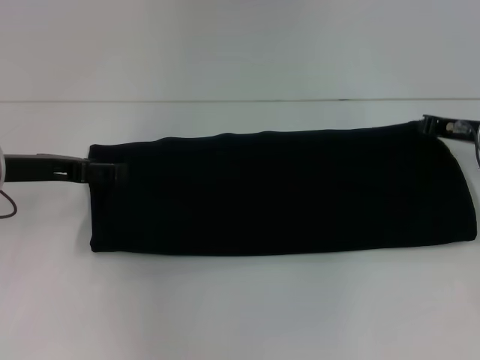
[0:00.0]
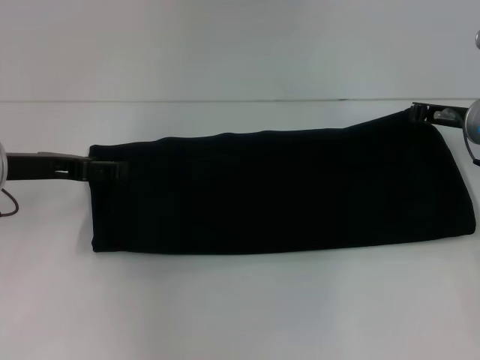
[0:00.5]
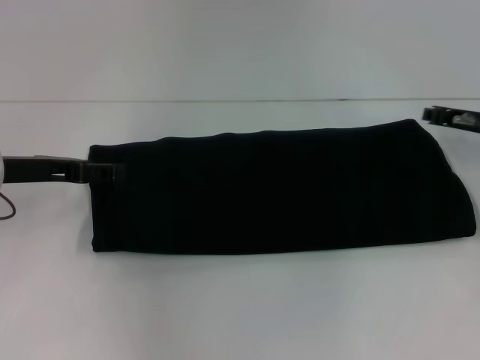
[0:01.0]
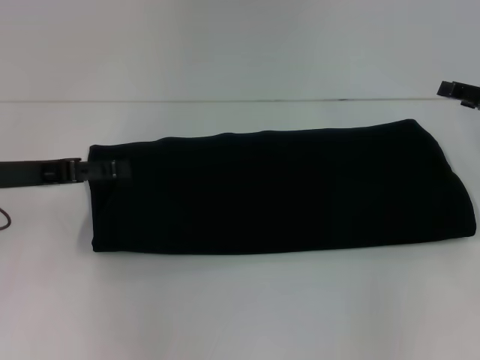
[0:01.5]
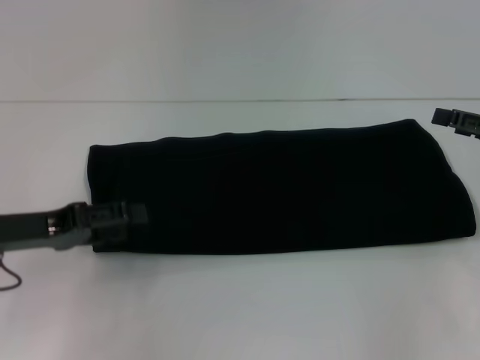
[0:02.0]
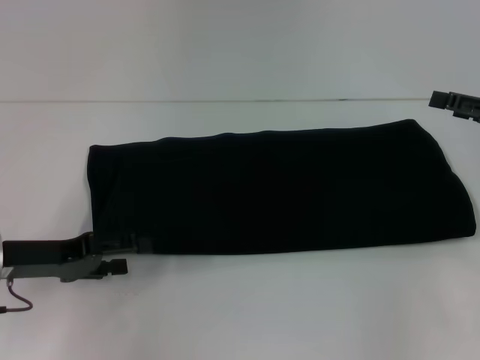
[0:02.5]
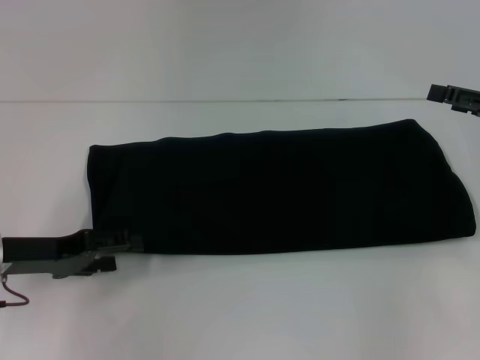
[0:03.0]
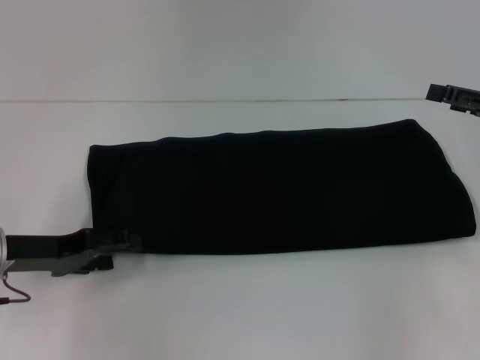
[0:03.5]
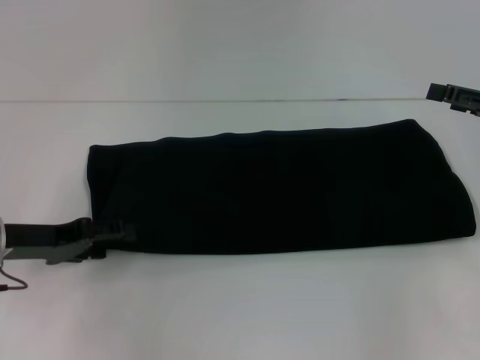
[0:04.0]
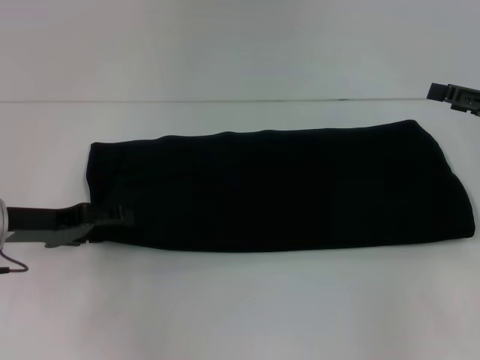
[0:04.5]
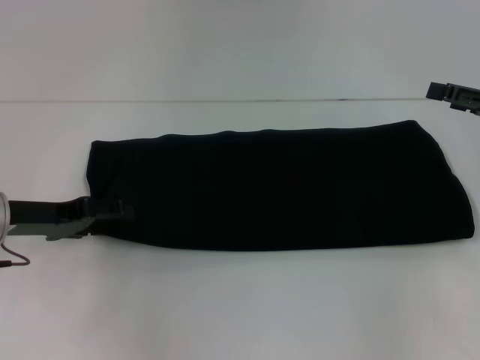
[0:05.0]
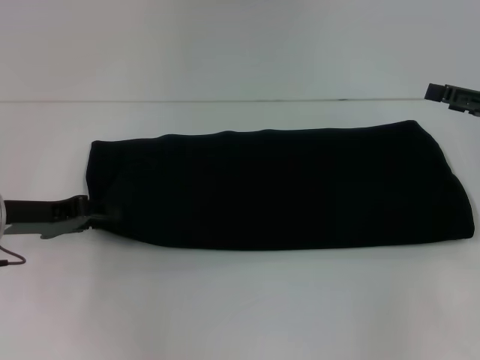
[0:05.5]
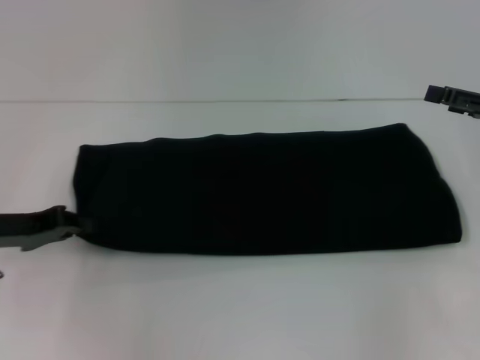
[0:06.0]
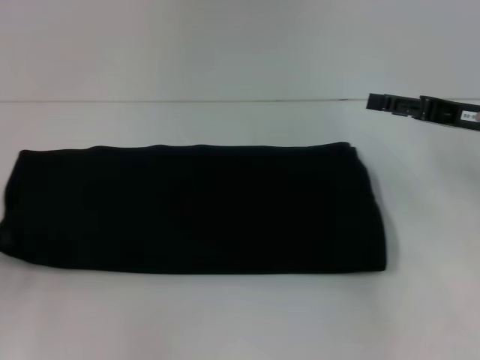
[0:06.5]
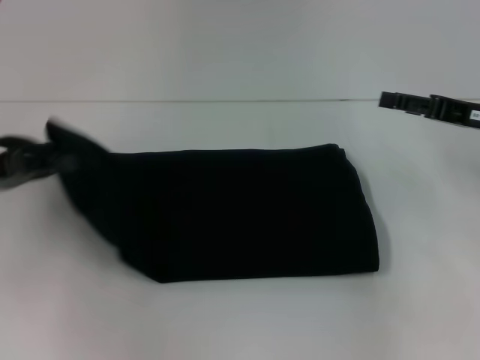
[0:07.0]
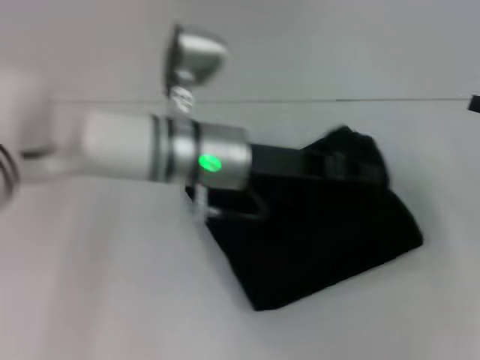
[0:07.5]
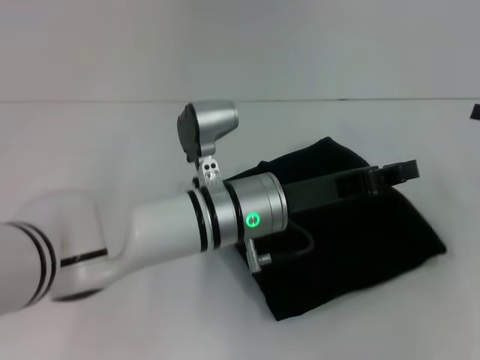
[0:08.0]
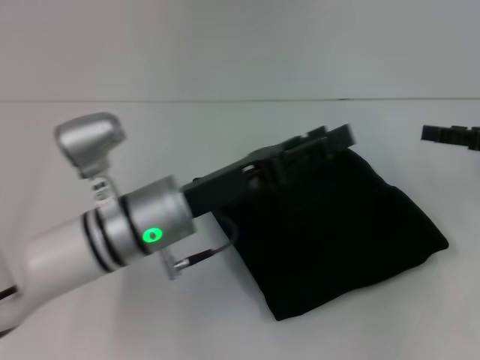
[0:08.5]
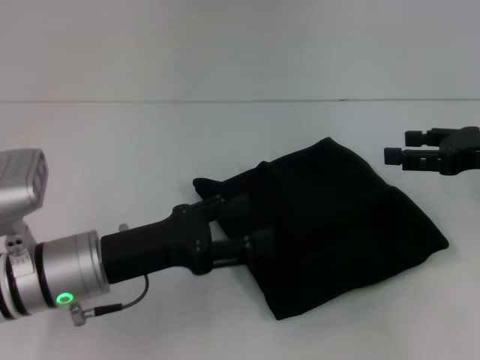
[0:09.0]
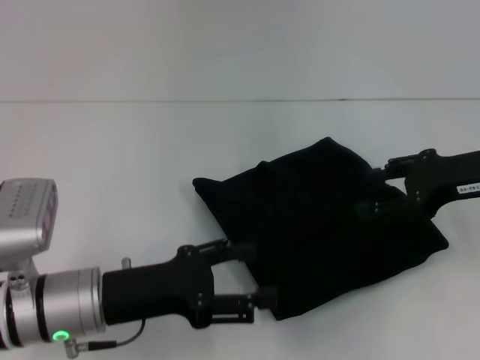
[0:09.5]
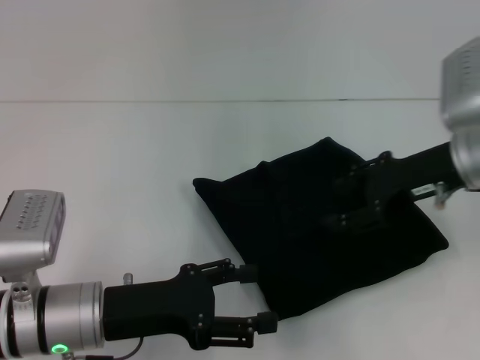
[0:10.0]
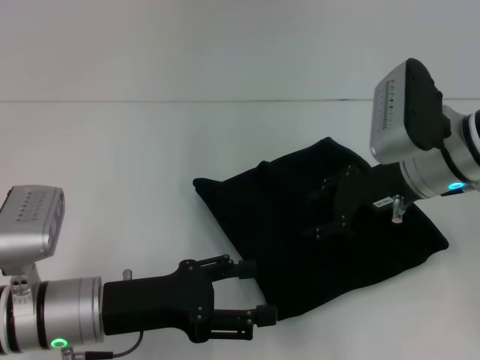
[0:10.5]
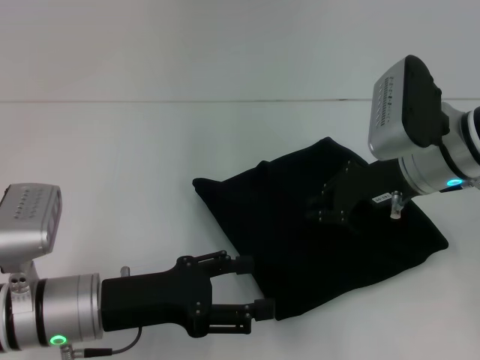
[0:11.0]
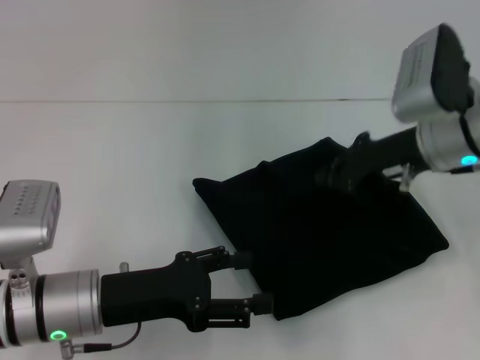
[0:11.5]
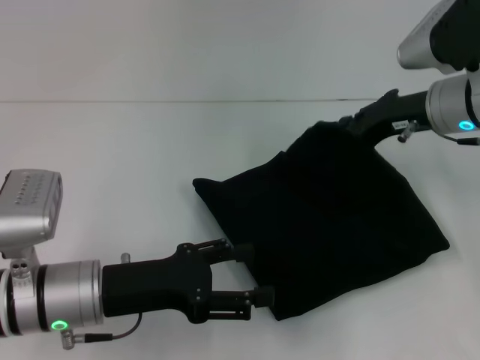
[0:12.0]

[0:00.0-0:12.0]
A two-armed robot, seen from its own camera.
Step, 0:00.0 to 0:07.5: Fold the clothes with your left hand.
0:00.0 to 0:02.0: The right gripper moves backward and to the right, approximately 10 cm, and opens. Meanwhile the left gripper heads backward, covering approximately 5 cm.
0:02.0 to 0:04.0: There are only small adjustments of the grippers.
0:04.0 to 0:06.0: The left gripper closes.
0:06.0 to 0:08.0: The left gripper travels to the right by some 30 cm.
0:08.0 to 0:10.0: The left gripper shifts some 20 cm to the left and backward, and opens its fingers. Meanwhile the right gripper travels to the left by about 15 cm.
0:10.0 to 0:12.0: The right gripper closes.

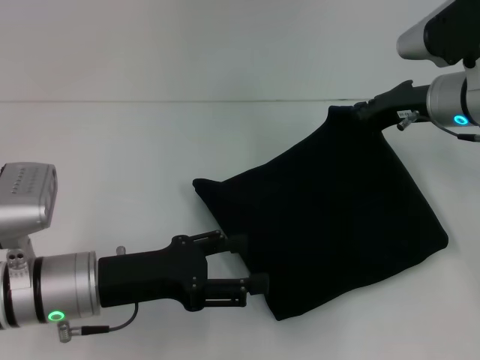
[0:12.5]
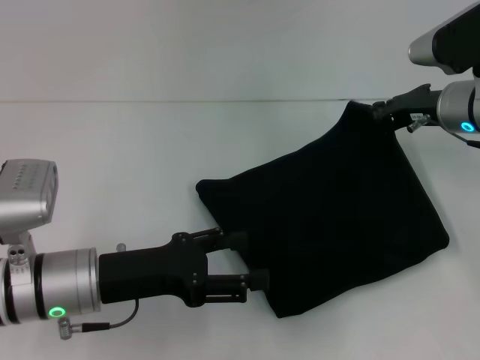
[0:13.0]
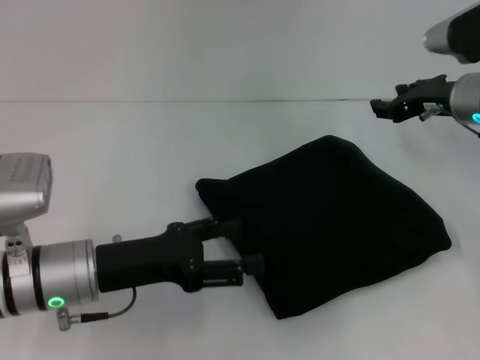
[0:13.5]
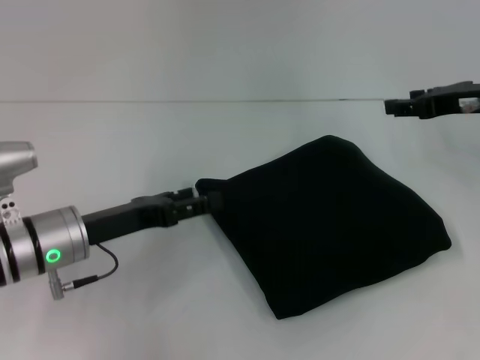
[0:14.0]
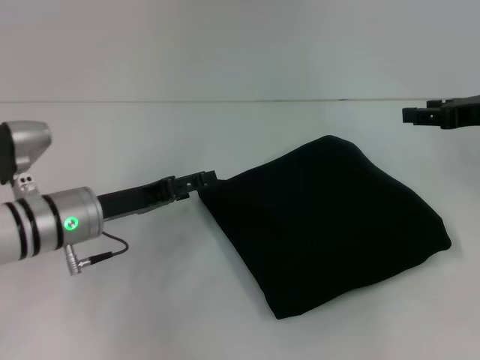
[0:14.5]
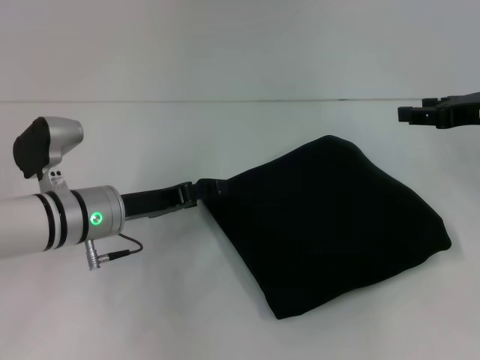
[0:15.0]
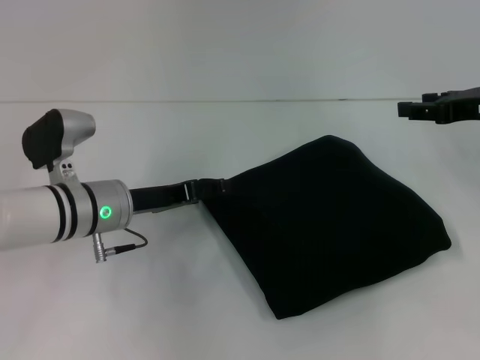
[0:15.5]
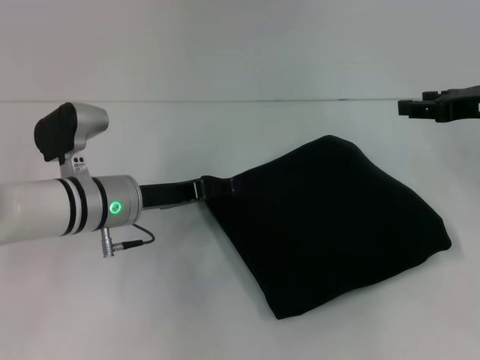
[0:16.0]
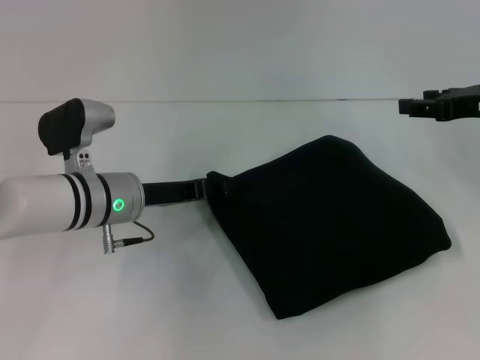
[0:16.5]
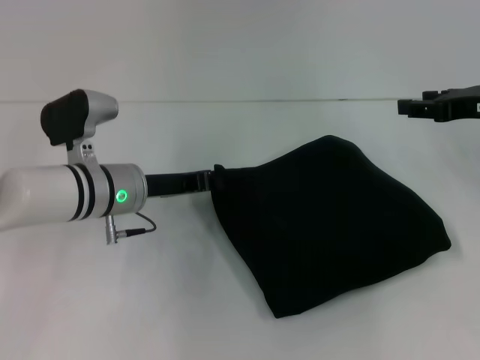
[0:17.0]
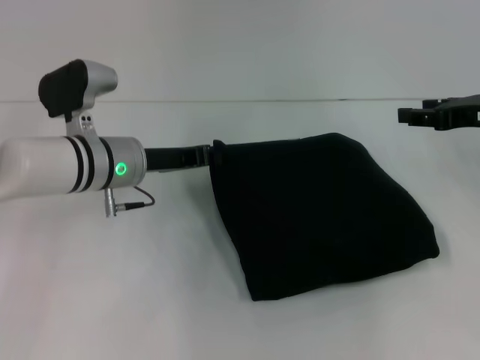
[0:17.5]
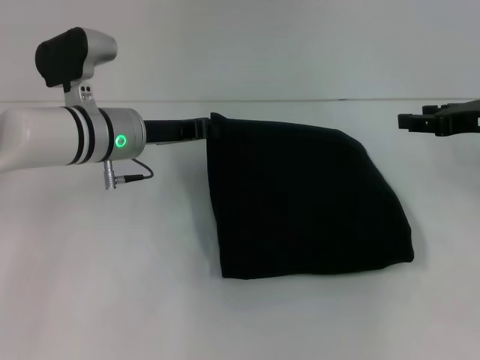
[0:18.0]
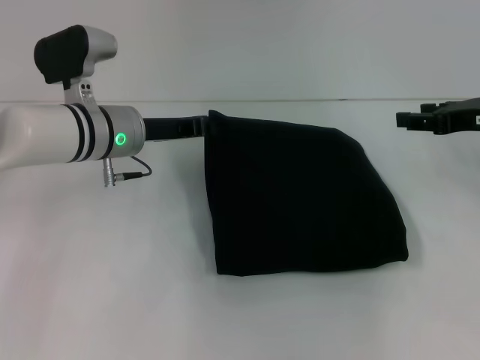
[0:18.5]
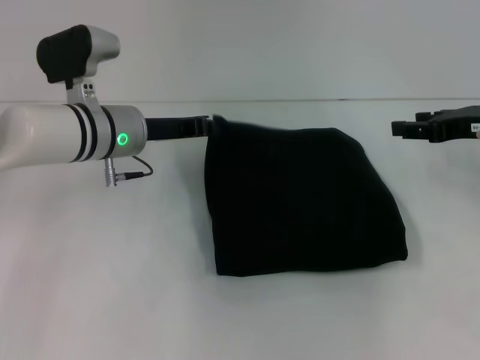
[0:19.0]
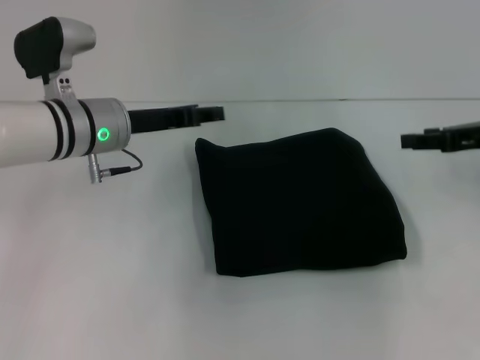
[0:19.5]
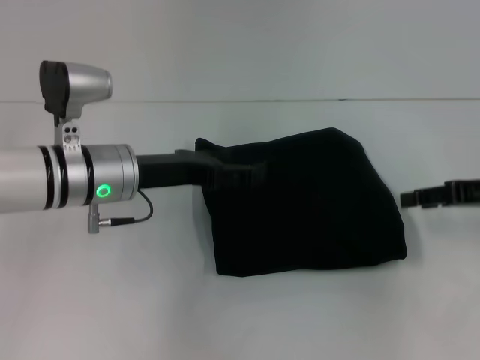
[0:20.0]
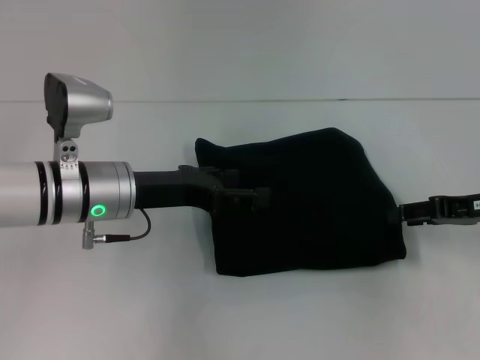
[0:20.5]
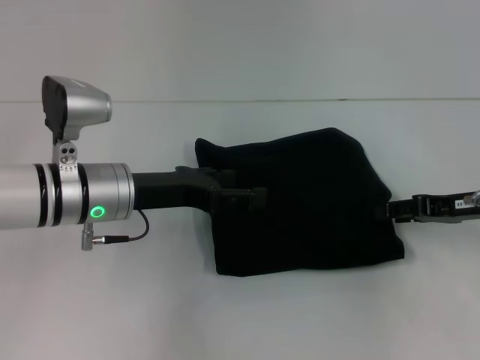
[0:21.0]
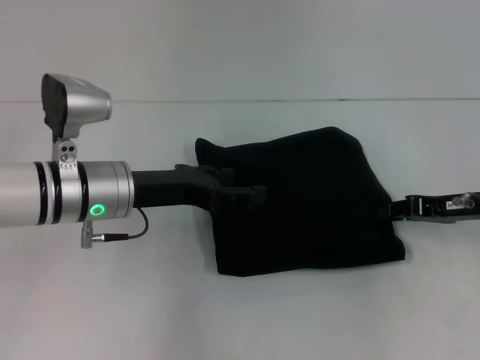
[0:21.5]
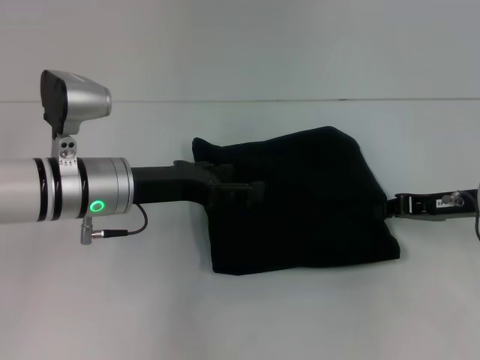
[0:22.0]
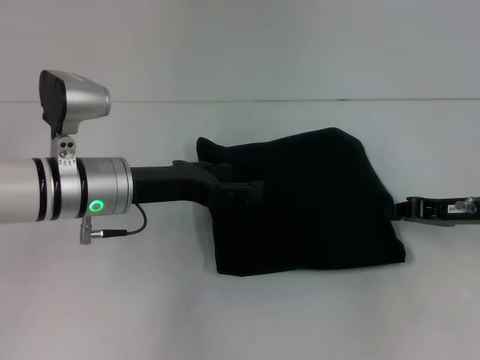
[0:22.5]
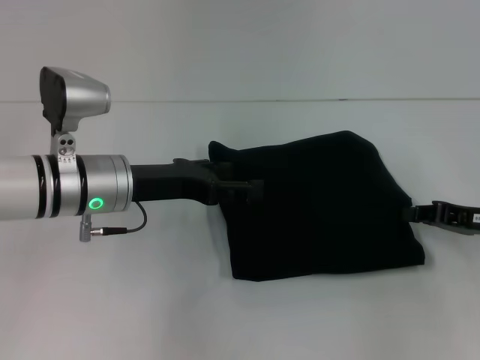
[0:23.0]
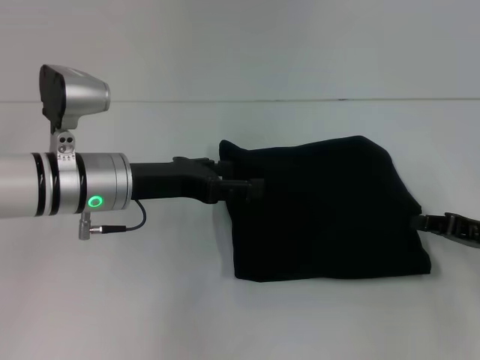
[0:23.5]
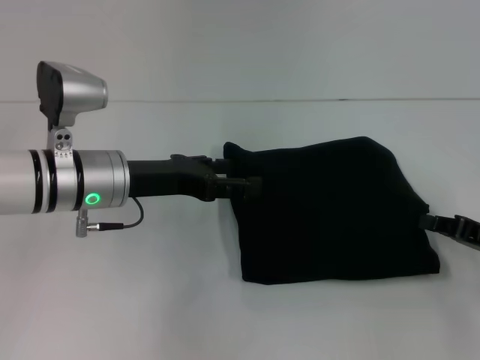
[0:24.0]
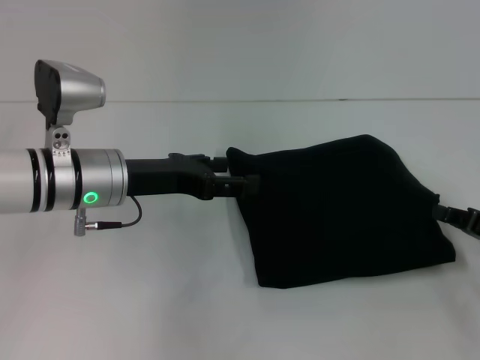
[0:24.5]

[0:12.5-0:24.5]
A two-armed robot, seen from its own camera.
0:12.5 to 0:14.5: The right gripper is displaced to the right by some 10 cm, and opens its fingers, while the left gripper goes roughly 5 cm forward.
0:14.5 to 0:16.5: The left gripper ends up roughly 5 cm from where it was.
0:16.5 to 0:18.5: The left gripper moves approximately 5 cm, and closes.
0:18.5 to 0:20.5: The left gripper is displaced backward by approximately 5 cm, and opens. Meanwhile the right gripper travels downward by some 5 cm.
0:20.5 to 0:22.5: The right gripper closes.
0:22.5 to 0:24.5: The right gripper heads backward, covering approximately 5 cm.

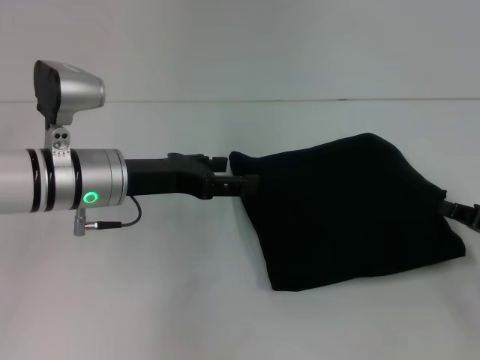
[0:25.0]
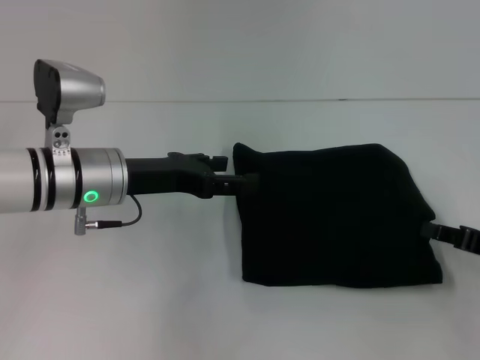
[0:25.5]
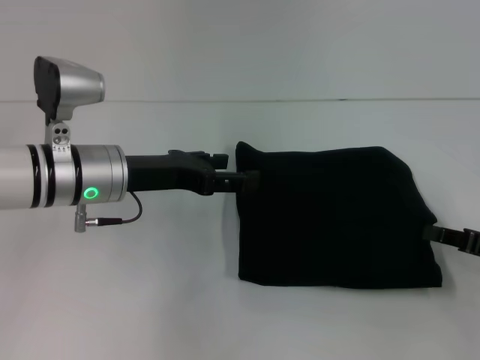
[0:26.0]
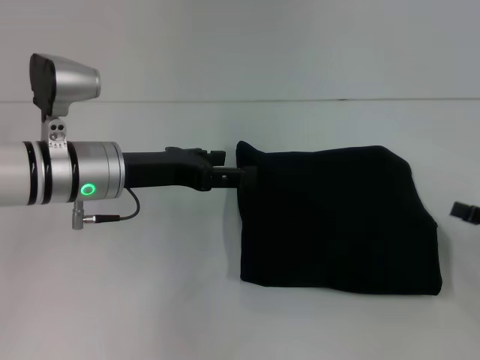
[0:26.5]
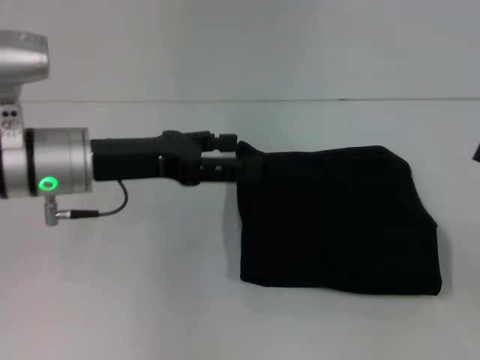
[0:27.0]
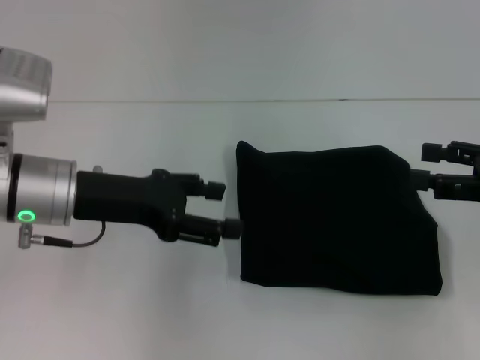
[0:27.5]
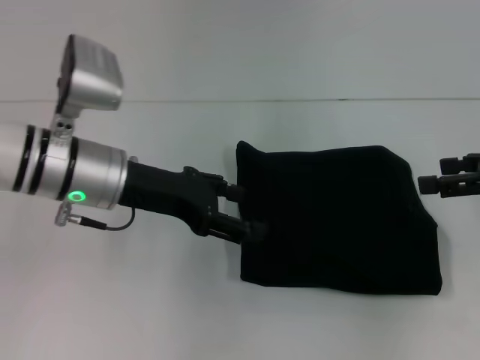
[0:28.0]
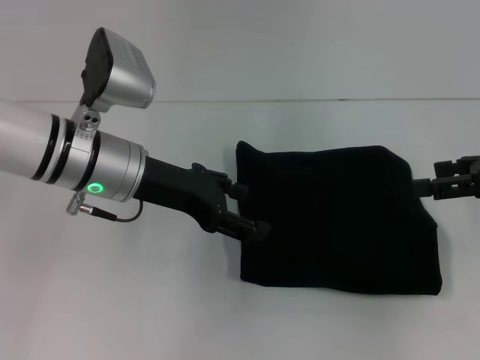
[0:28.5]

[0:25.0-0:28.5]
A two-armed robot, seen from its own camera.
0:25.0 to 0:27.0: The right gripper heads upward, covering approximately 5 cm, and opens.
0:27.0 to 0:28.5: The right gripper moves forward, upward and to the left, about 10 cm.
